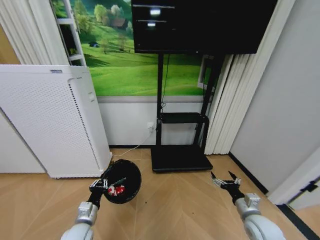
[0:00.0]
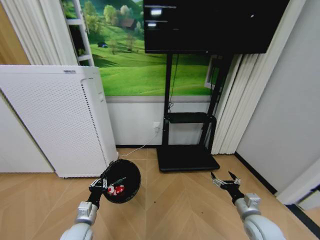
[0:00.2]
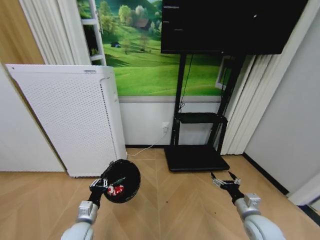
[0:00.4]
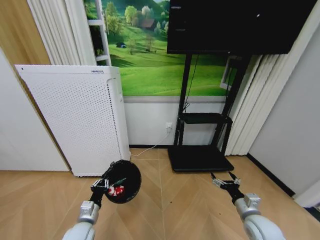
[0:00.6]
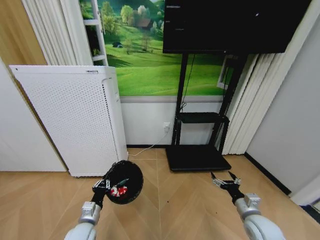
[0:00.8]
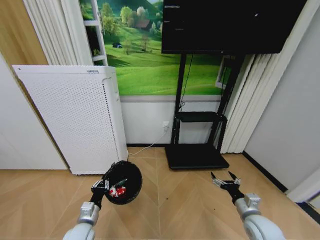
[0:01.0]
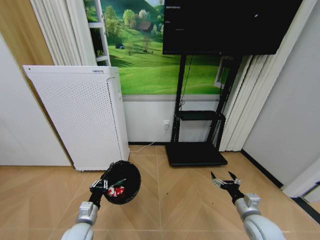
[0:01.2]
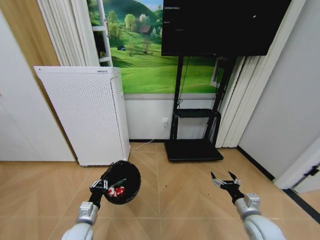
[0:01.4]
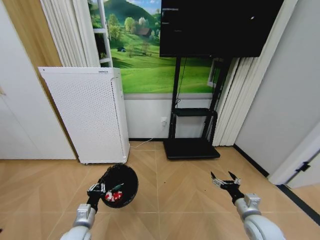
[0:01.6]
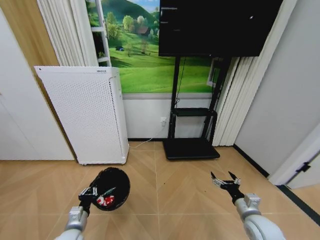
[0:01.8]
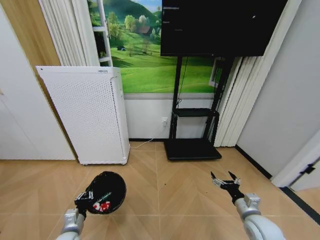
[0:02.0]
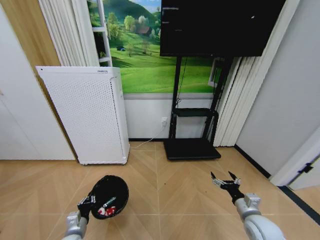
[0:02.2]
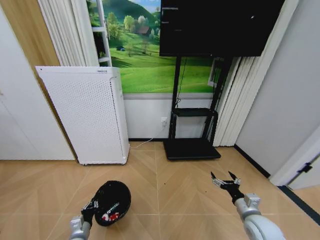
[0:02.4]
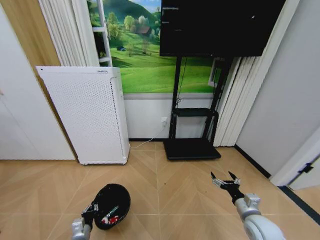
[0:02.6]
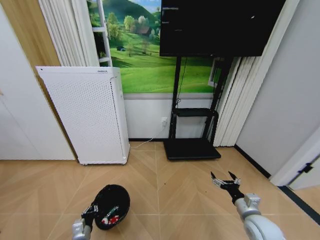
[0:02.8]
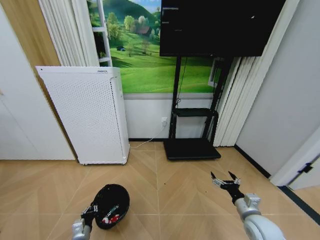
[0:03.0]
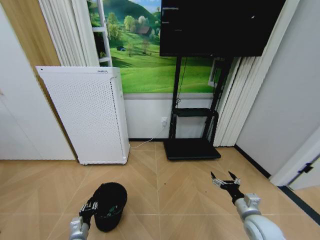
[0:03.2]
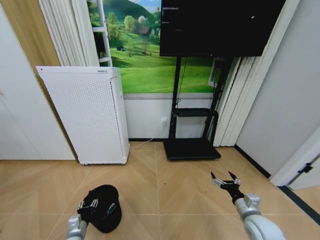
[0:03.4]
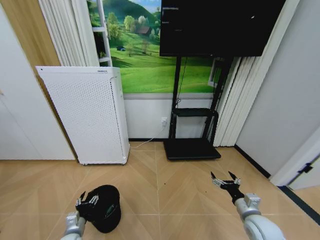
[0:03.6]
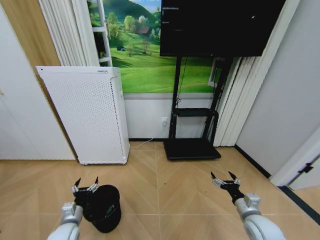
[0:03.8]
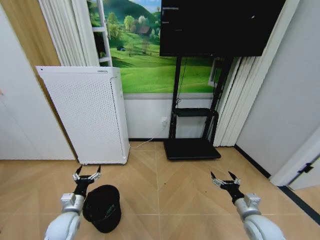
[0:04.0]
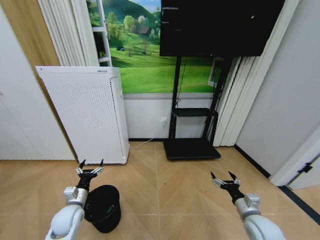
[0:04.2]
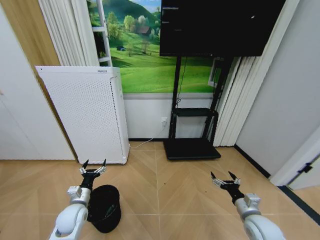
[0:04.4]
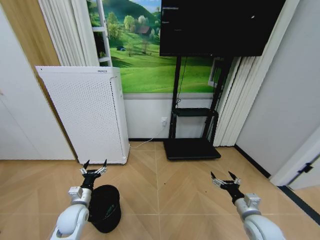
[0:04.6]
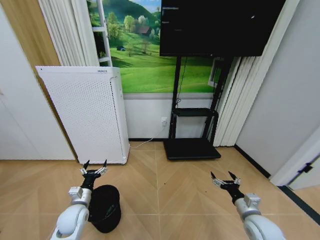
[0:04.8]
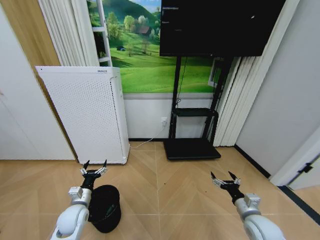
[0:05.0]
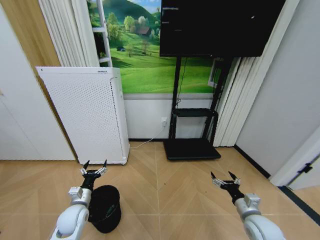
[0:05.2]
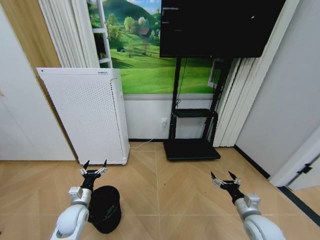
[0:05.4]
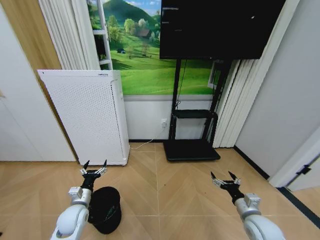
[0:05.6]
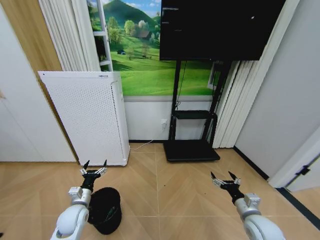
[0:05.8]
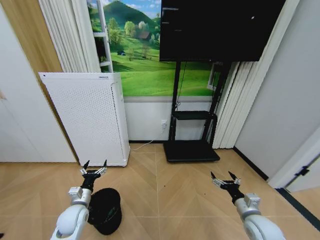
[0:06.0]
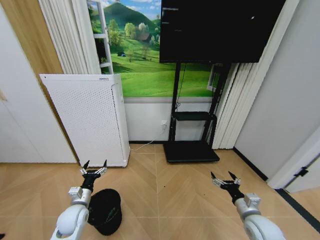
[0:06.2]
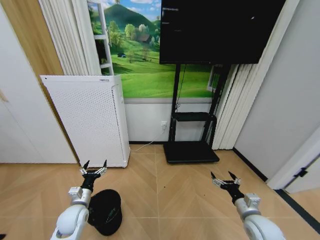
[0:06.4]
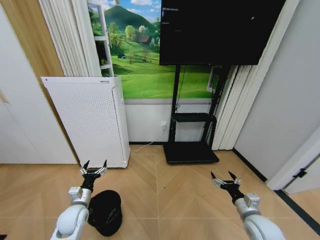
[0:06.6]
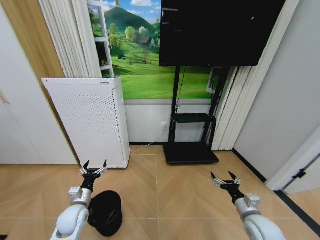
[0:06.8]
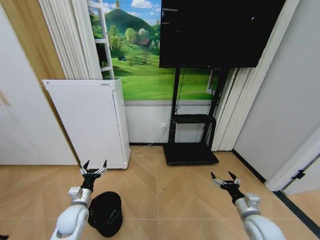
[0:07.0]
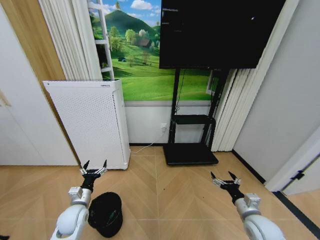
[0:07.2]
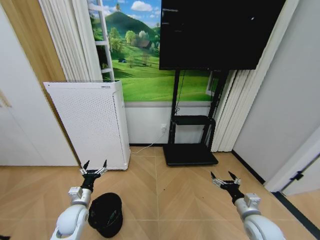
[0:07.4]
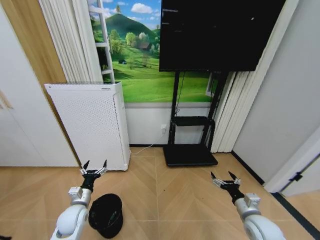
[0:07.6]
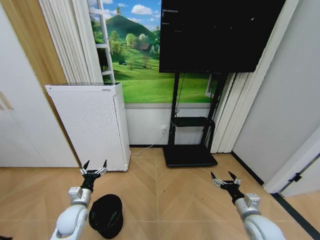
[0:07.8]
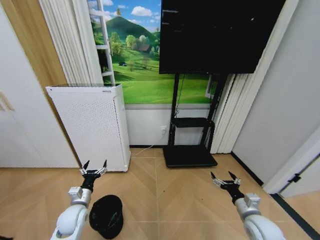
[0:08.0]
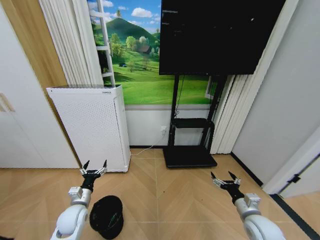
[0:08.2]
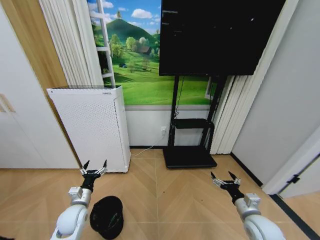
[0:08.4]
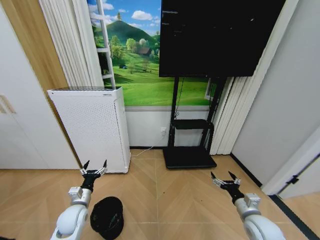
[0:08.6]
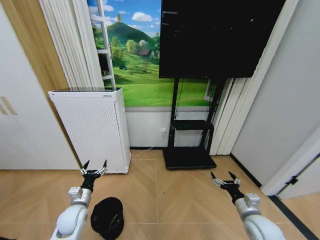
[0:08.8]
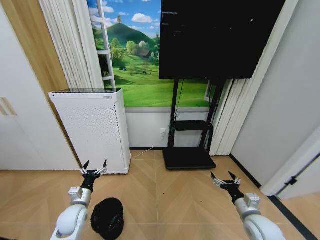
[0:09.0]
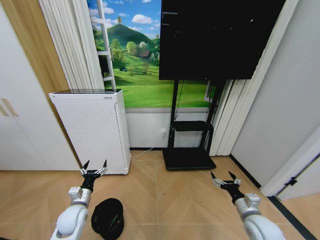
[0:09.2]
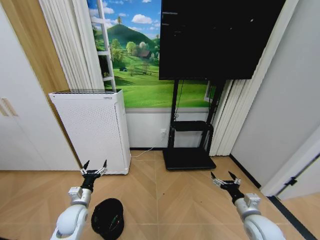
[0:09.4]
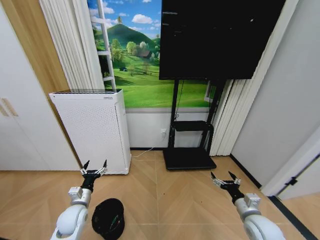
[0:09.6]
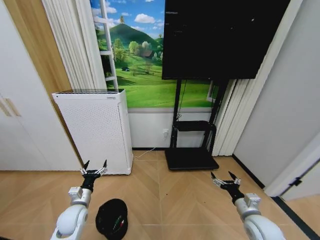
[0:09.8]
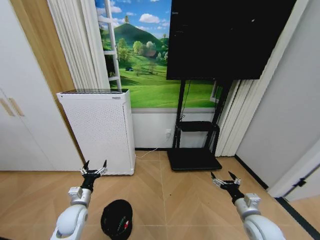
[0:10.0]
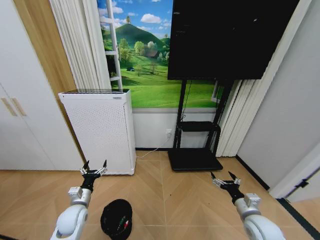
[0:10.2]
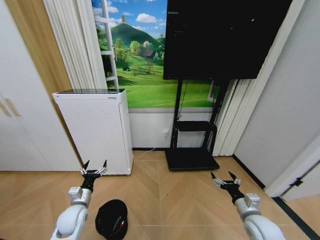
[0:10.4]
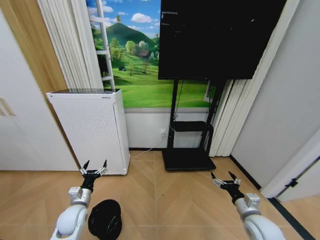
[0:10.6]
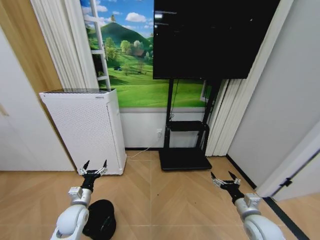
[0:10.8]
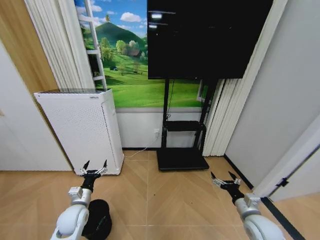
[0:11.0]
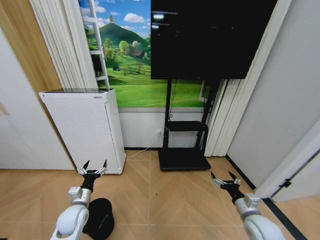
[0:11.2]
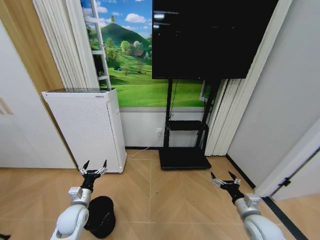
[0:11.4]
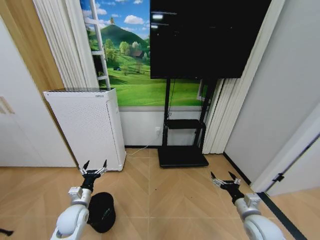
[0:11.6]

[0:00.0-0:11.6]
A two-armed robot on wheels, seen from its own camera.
Task of the whole recording: Pick up the trash bin and place the garbage on the floor into it.
0:01.4 to 0:02.8: The left gripper travels downward by some 10 cm.
0:02.8 to 0:04.4: The left gripper heads upward and forward, covering about 15 cm, and opens its fingers.
0:04.4 to 0:08.8: Both grippers stay put.

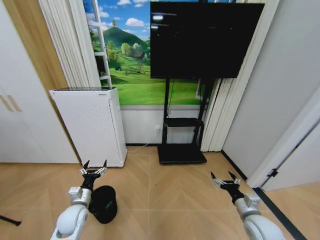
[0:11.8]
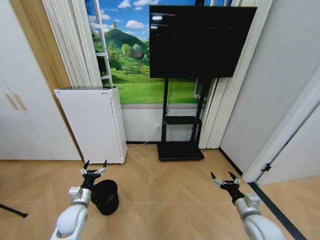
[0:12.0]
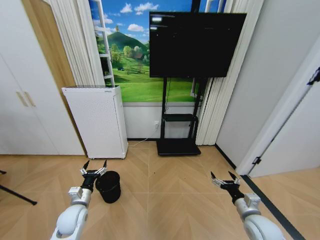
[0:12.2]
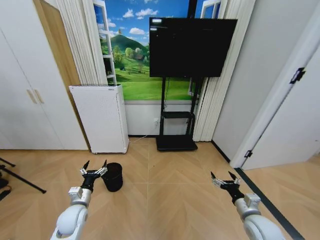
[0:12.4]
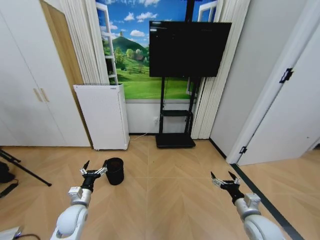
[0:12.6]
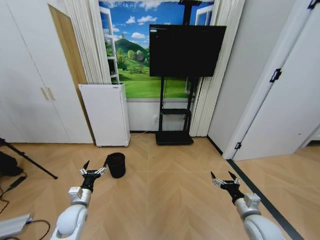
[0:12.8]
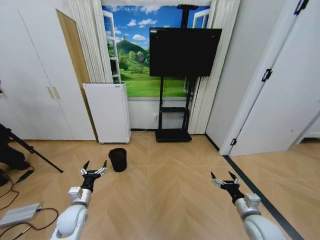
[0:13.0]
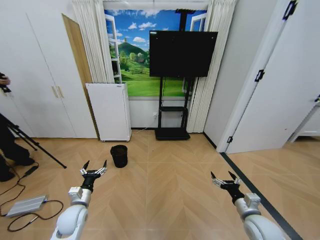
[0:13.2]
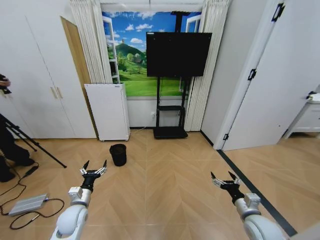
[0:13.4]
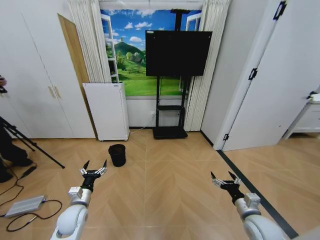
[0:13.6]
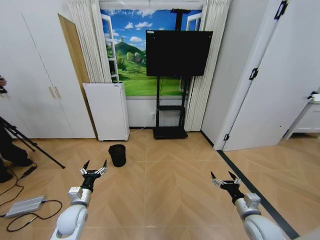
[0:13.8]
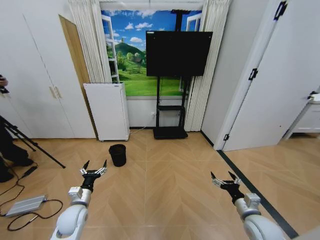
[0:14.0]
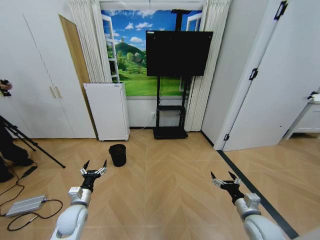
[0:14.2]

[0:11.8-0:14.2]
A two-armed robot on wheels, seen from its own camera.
Task of the whole recording: Pick up the trash bin and place the garbage on the floor into it.
0:13.0 to 0:14.2: Both grippers stay about where they are.

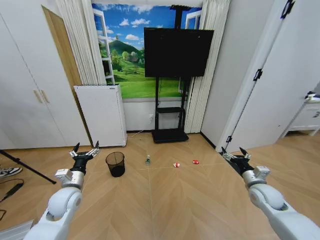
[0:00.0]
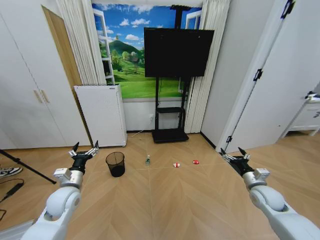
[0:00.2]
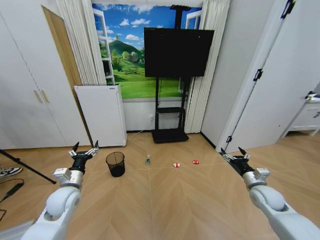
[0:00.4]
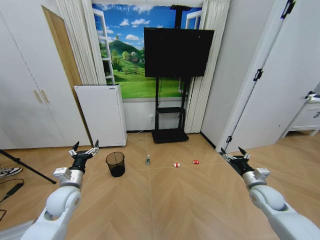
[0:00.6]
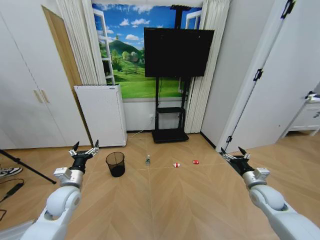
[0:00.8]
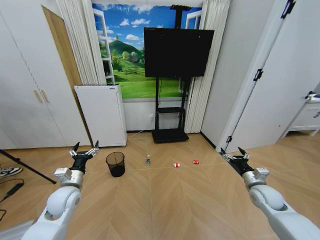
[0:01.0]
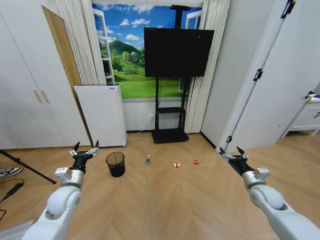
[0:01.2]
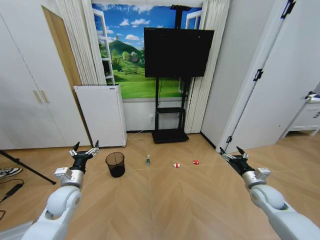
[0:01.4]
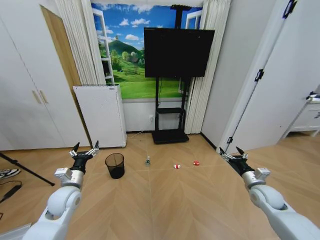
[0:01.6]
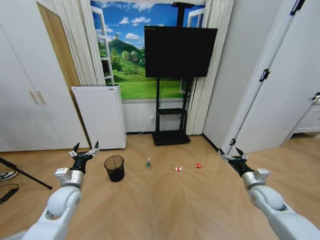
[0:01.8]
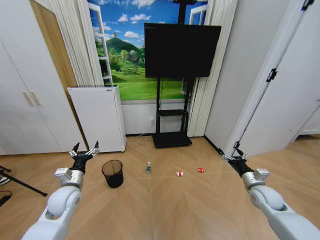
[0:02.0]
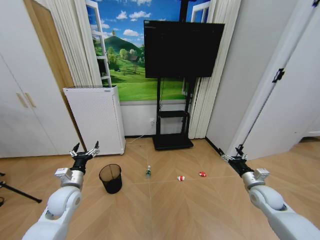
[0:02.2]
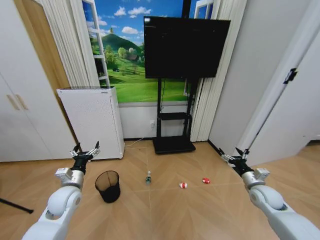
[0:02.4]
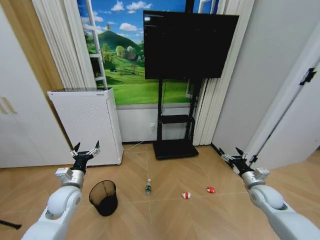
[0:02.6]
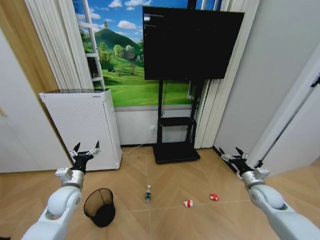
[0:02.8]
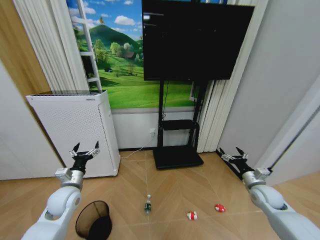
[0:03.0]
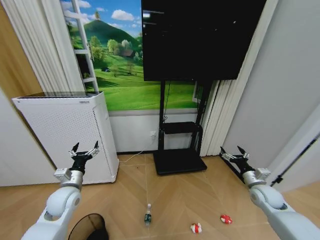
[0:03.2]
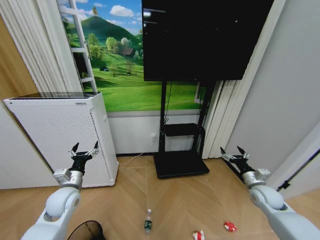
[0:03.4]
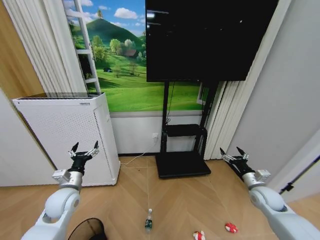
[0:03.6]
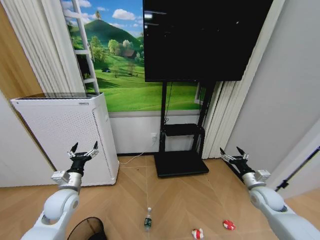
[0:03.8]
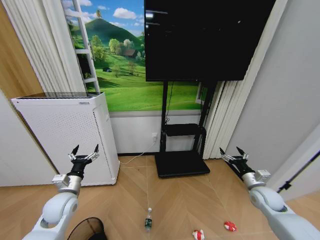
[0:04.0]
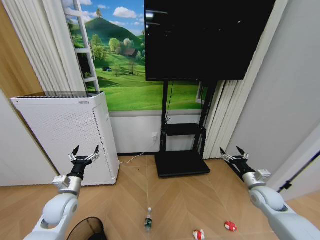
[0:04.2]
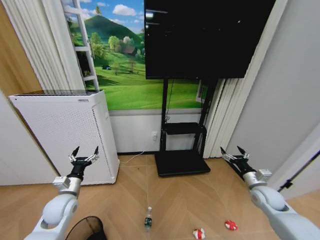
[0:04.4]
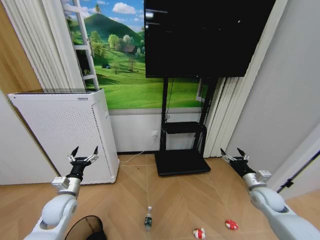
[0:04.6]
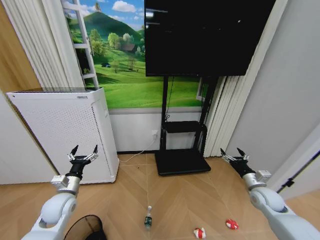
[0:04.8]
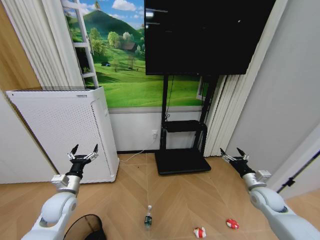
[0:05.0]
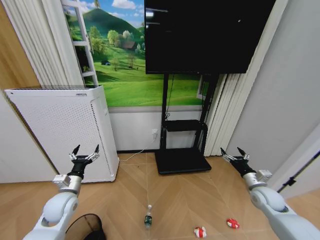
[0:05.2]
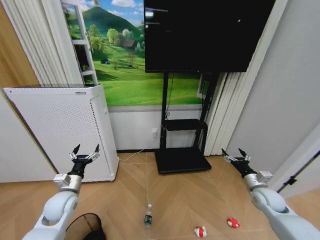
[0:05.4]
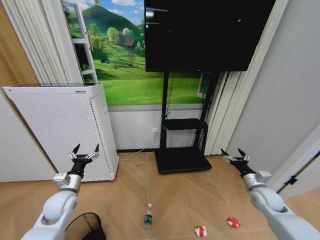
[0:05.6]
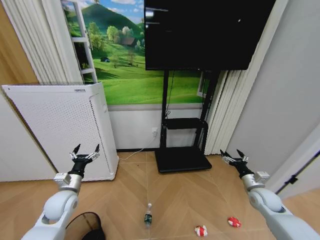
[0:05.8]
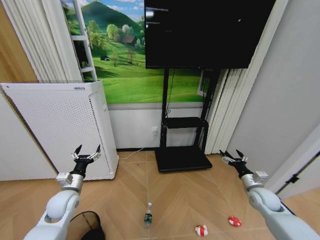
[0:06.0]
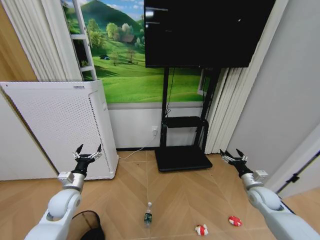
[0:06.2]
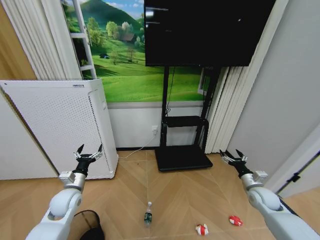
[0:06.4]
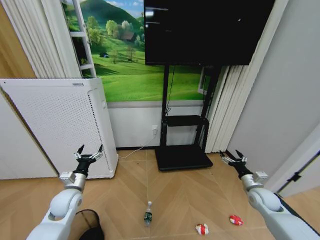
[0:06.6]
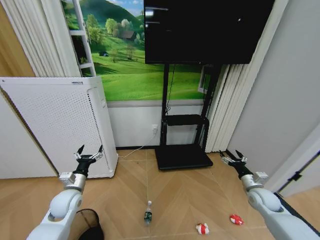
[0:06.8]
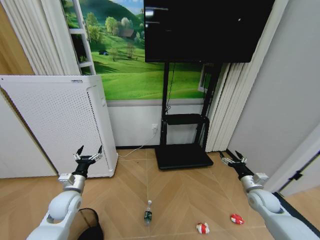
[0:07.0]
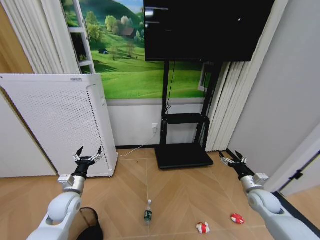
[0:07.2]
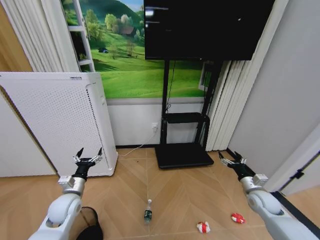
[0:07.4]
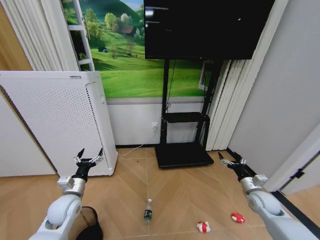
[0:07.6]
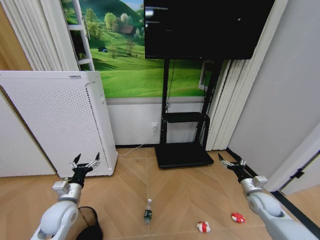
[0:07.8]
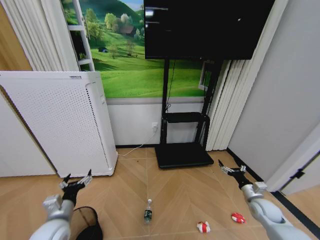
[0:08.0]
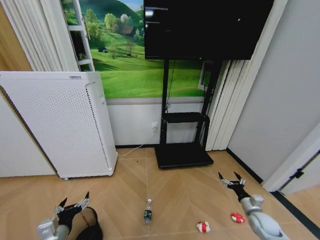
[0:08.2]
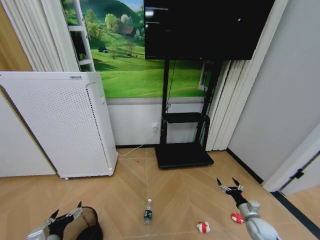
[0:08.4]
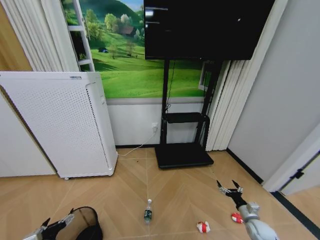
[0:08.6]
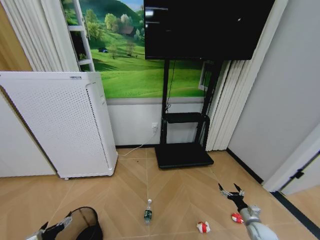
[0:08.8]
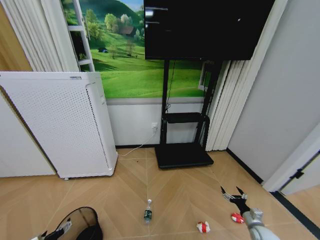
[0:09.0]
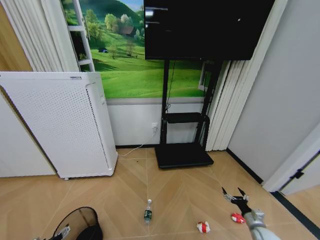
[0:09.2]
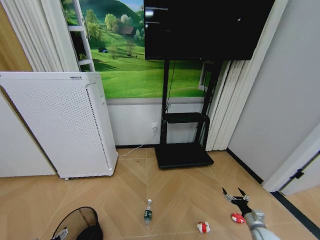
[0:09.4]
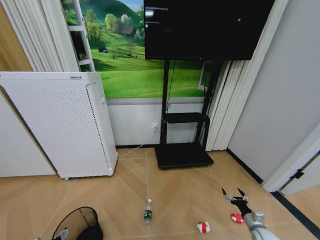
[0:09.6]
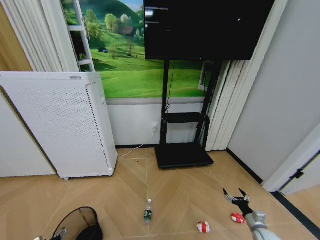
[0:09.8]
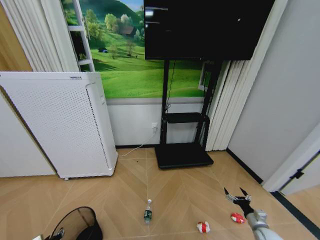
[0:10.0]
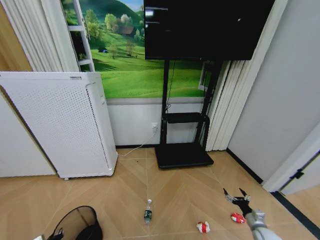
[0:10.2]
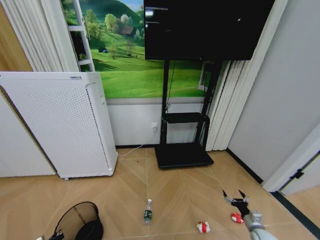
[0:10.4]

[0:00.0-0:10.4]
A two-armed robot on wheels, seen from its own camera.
Task of the whole recording: Pick up the trash bin and place the garbage on the floor into it.
0:04.4 to 0:07.4: There are only small adjustments of the grippers.
0:07.4 to 0:09.0: The left gripper travels backward and downward by roughly 20 cm; the right gripper travels downward and backward by approximately 20 cm.
0:09.0 to 0:10.4: The left gripper travels downward by about 5 cm, and closes its fingers.
